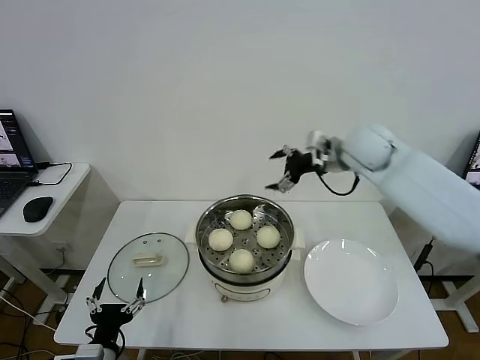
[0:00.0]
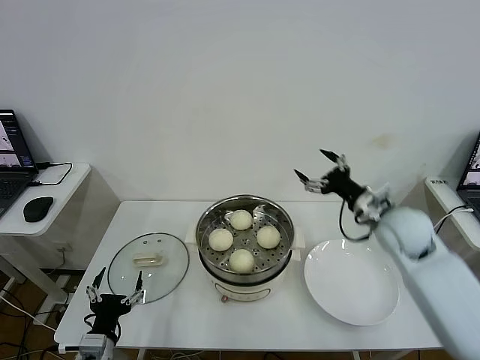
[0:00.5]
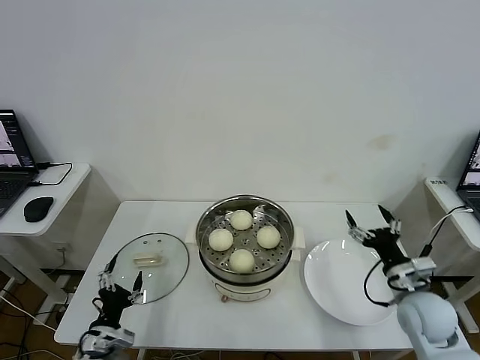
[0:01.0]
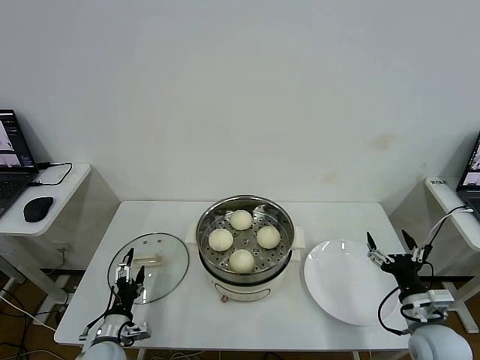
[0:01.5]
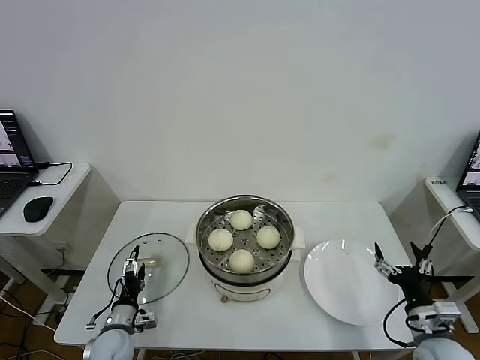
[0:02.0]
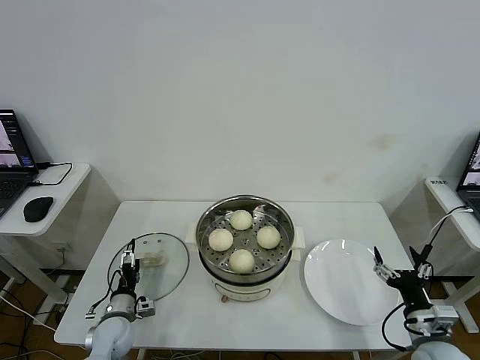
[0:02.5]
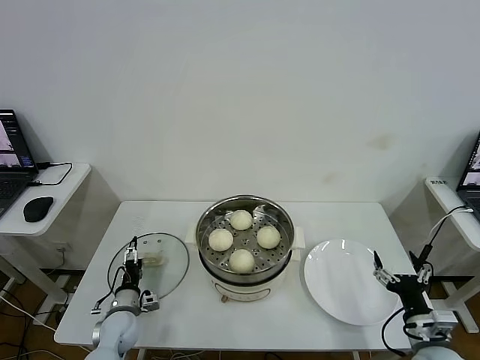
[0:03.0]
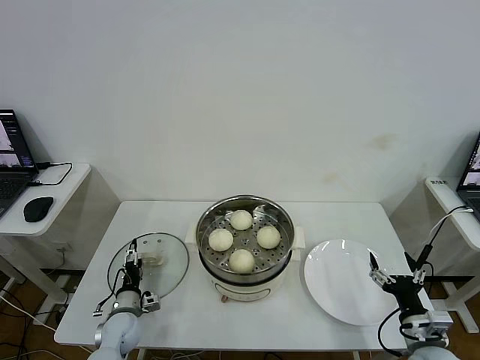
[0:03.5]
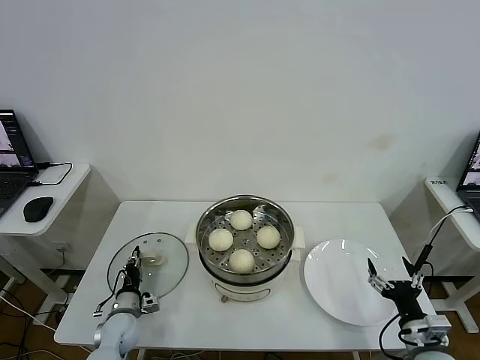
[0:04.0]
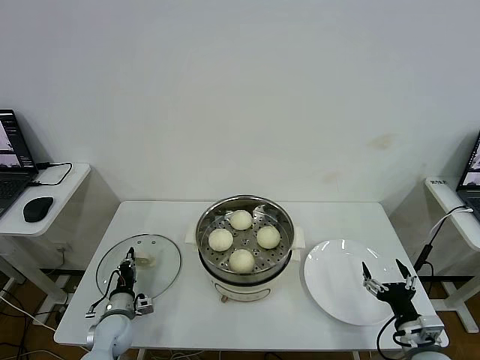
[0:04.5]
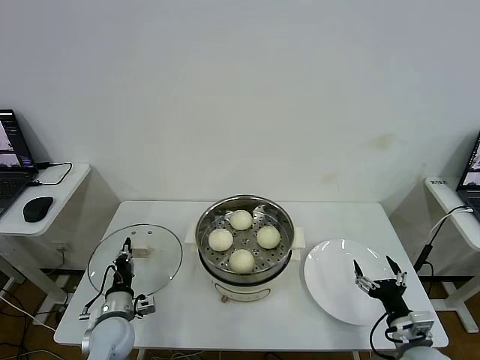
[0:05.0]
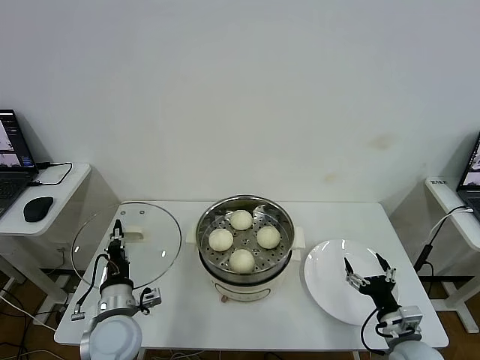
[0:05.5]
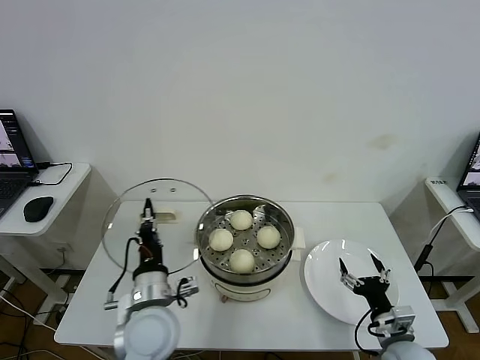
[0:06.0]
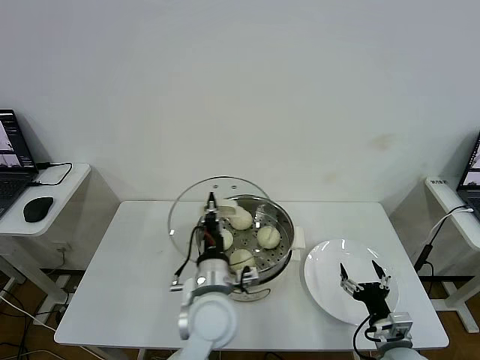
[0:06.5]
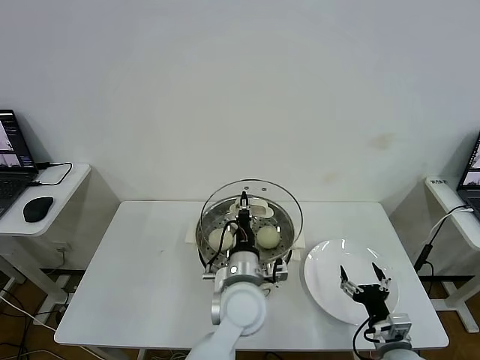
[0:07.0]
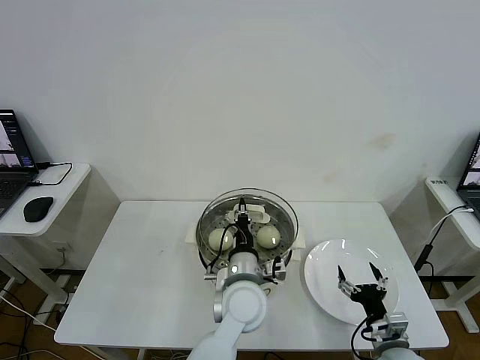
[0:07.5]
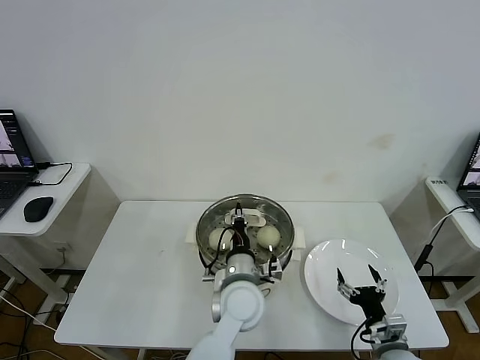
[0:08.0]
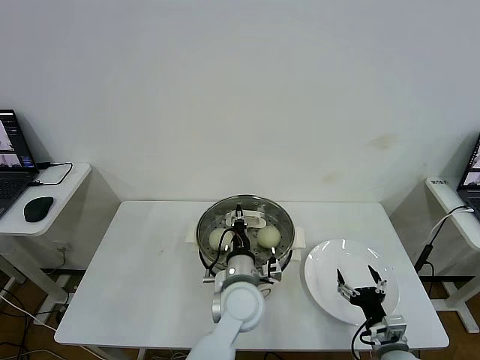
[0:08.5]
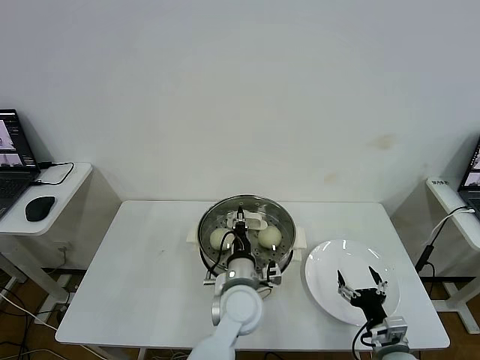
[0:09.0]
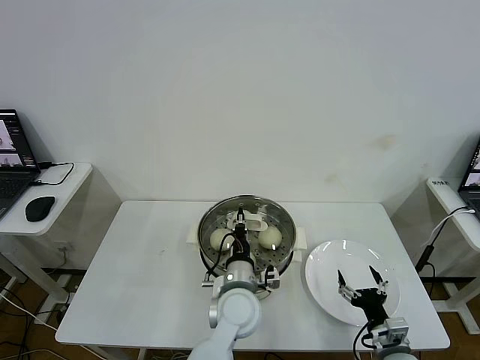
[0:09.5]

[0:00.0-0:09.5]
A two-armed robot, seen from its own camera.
Step, 0:00.0 to 0:04.0: Grasp the pot lid with left gripper.
0:00.0 to 0:02.0: The left gripper travels forward and downward by some 15 cm. Meanwhile the right gripper heads backward, downward and to the right, covering some 40 cm.
0:02.0 to 0:04.0: The left gripper heads forward, covering roughly 5 cm, and closes its fingers.
0:04.0 to 0:05.5: The left gripper moves upward and to the right, roughly 15 cm.
0:05.5 to 0:07.5: The left gripper heads to the right, covering roughly 25 cm.
0:07.5 to 0:09.5: There are only small adjustments of the grippers.

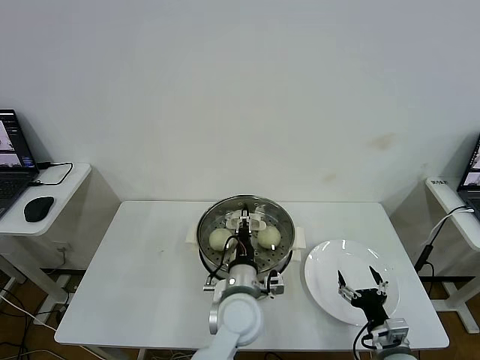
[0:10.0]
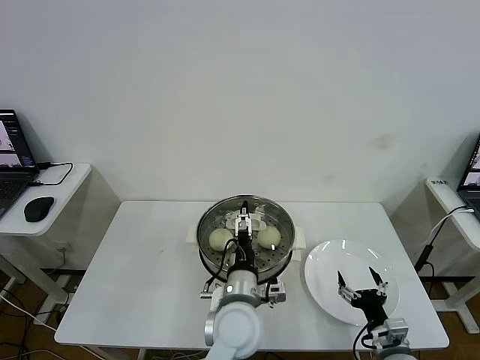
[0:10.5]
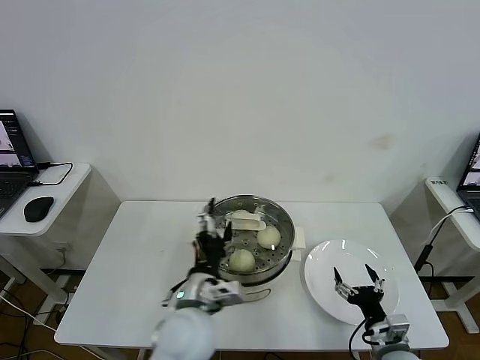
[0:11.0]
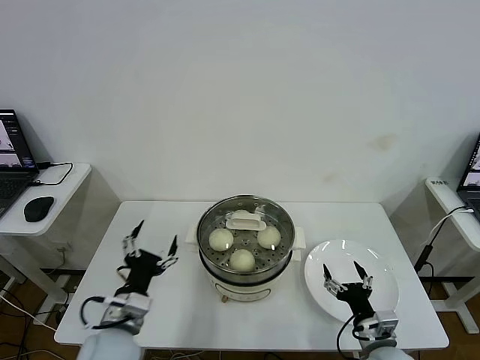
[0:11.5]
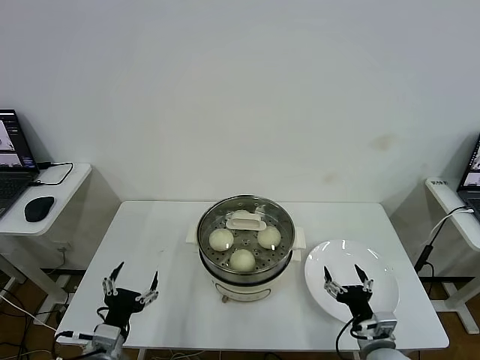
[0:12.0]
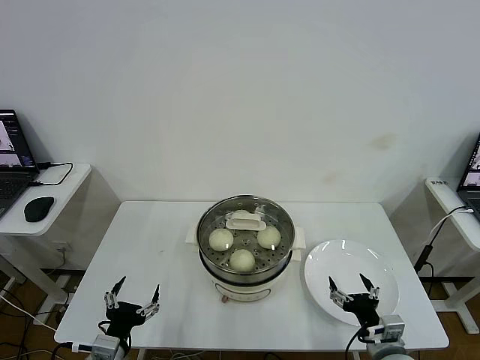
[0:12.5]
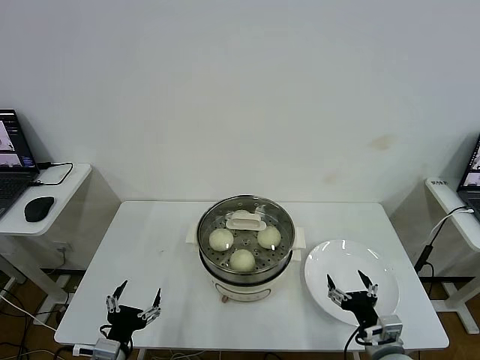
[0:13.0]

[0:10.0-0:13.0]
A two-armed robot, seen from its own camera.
0:10.0 to 0:11.5: The left gripper travels to the left by about 20 cm, and opens its fingers.
0:11.5 to 0:13.0: The left gripper moves backward, downward and to the left, roughly 10 cm.
